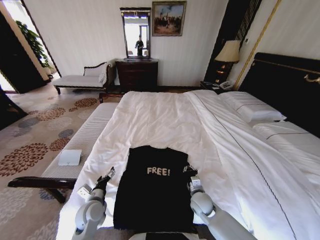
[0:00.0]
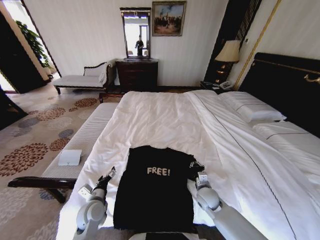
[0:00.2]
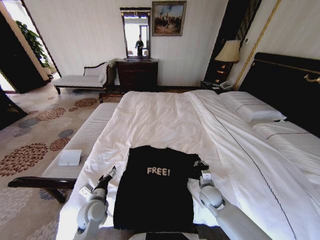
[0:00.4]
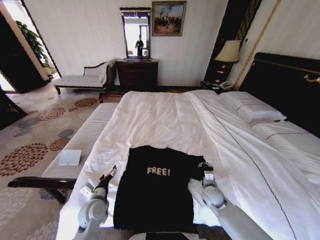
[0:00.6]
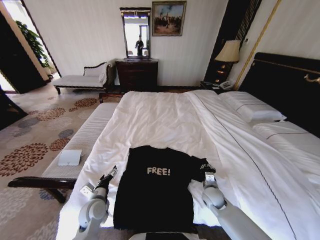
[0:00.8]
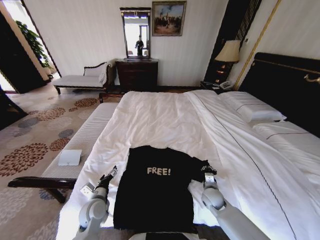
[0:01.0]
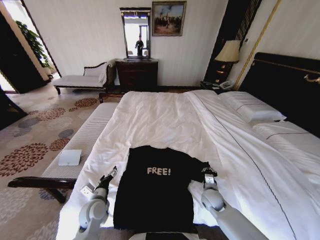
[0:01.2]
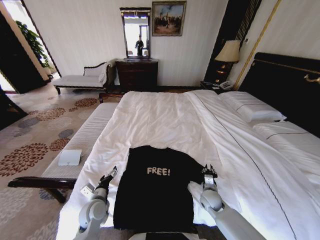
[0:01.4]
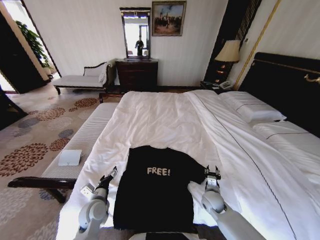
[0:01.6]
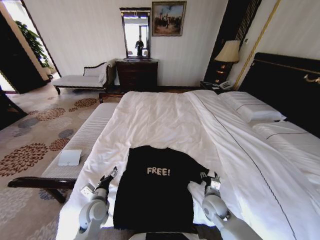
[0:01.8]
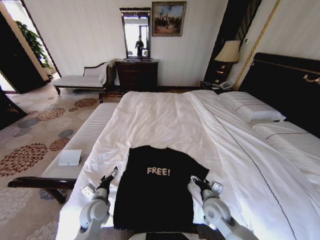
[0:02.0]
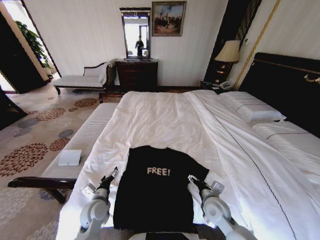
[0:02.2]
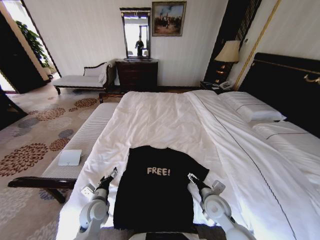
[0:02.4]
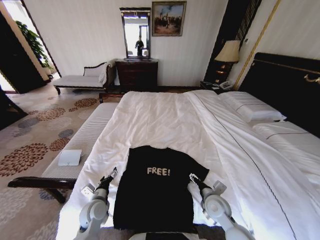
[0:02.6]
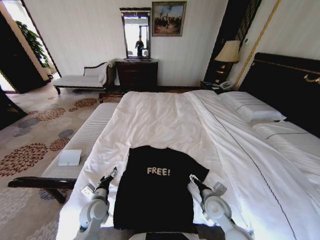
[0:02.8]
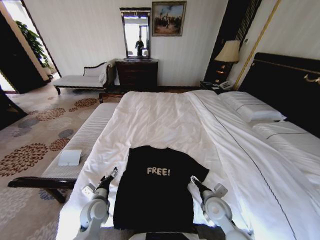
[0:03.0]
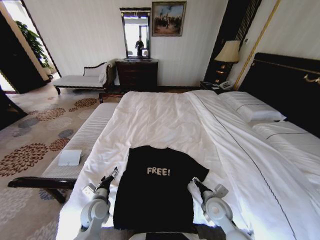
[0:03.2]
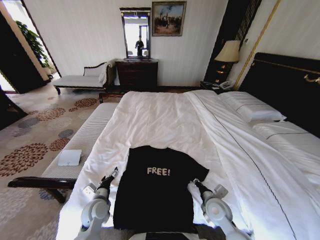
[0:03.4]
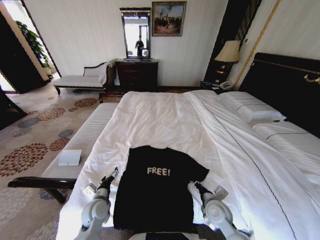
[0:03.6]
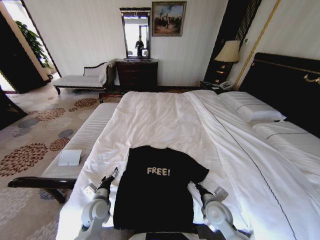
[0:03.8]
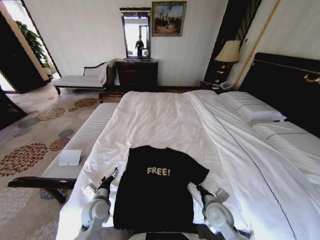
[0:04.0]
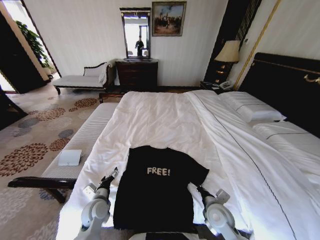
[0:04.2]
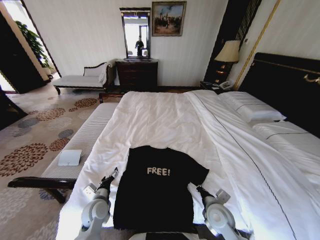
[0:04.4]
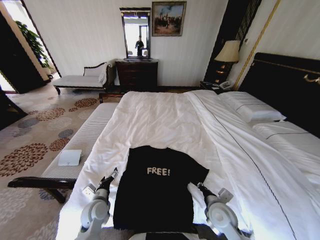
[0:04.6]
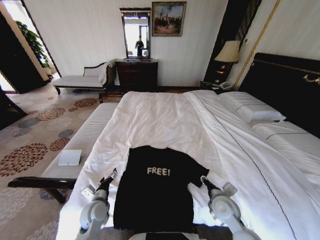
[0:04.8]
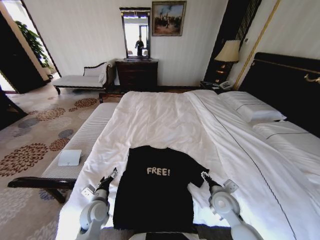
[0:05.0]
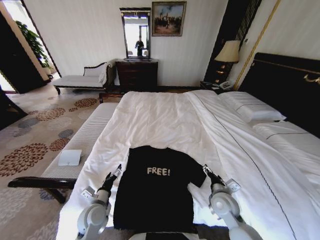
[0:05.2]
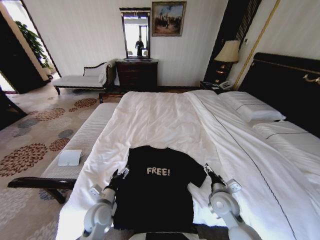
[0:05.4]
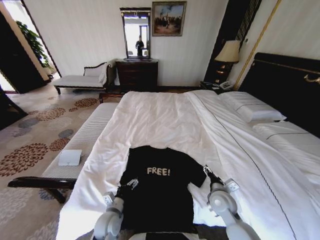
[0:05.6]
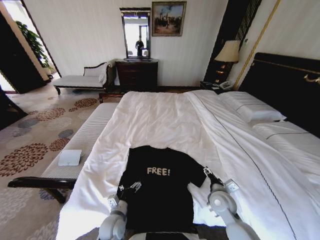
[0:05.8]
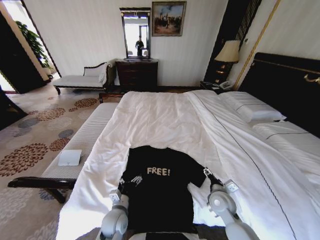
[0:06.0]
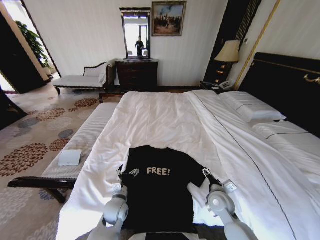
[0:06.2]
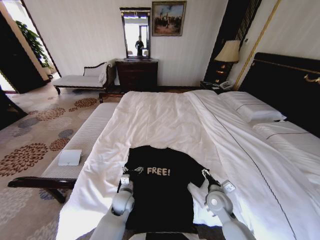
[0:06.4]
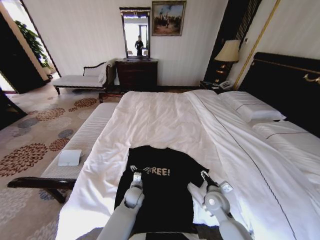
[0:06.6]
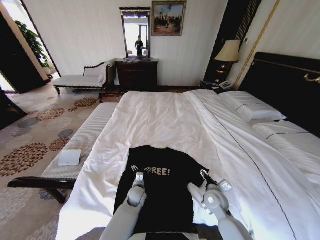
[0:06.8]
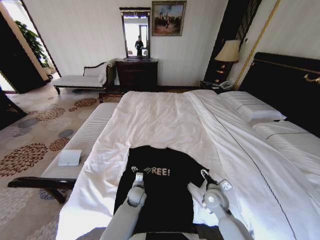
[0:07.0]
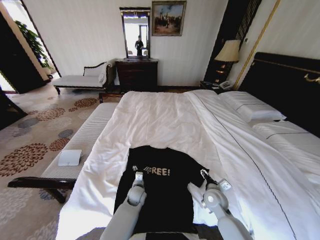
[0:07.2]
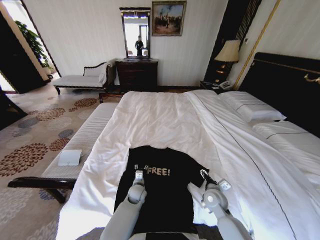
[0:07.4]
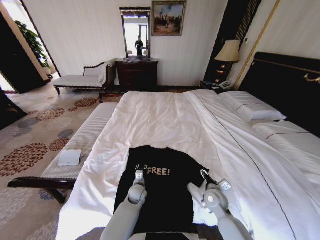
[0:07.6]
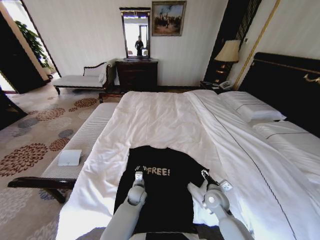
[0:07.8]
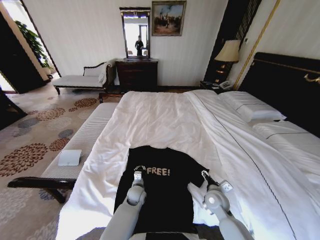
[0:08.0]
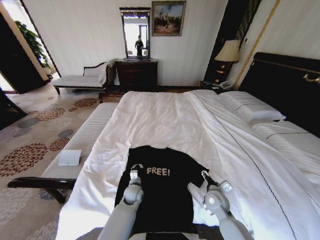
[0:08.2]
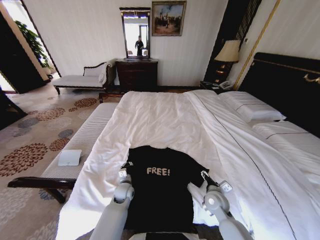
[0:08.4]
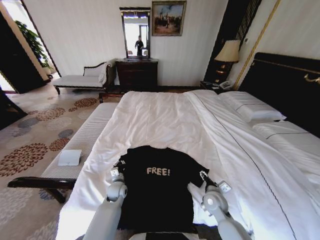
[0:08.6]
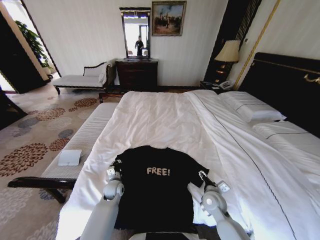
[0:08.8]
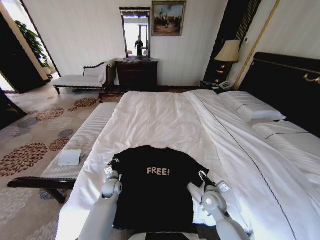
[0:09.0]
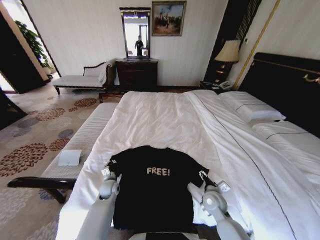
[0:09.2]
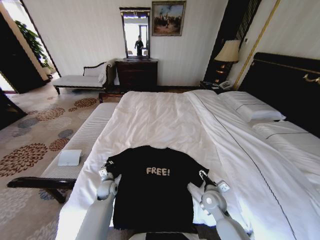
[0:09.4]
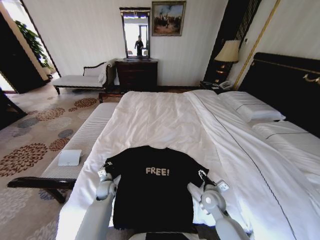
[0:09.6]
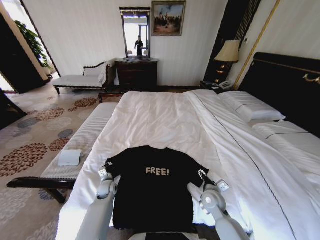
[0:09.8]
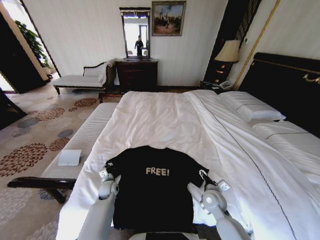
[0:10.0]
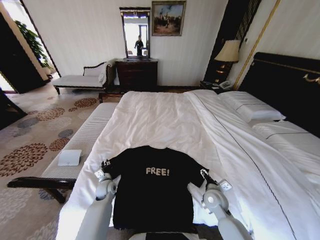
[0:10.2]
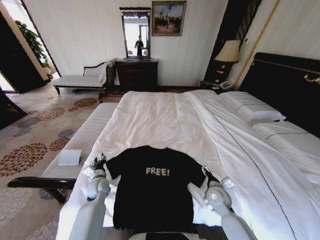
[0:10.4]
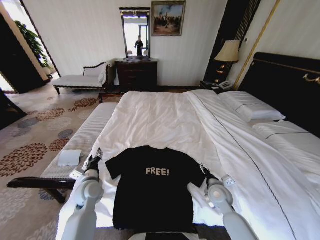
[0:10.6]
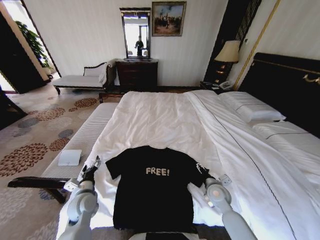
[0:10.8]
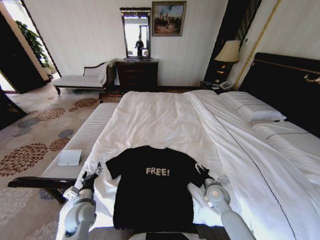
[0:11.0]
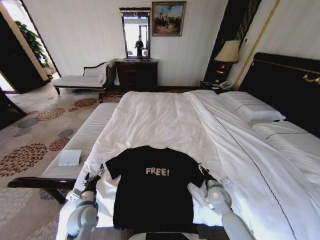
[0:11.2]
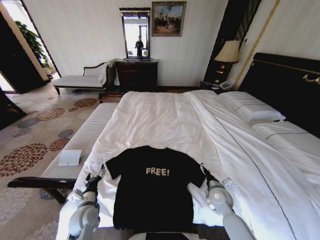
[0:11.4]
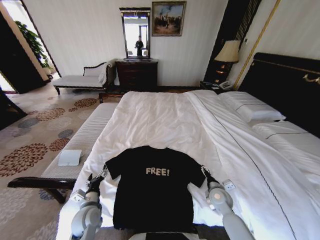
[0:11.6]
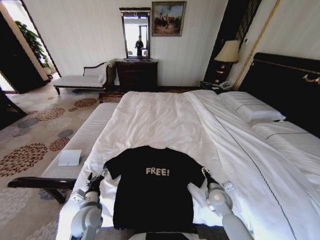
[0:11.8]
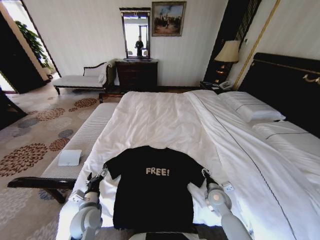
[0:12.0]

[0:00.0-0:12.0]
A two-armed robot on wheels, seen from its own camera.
Task of the whole recording: Fold the clothes on the bed.
0:00.0 to 0:01.6: The right gripper moves to the right, some 5 cm, and opens up.
0:01.6 to 0:03.0: The right gripper shifts about 10 cm upward and backward, and opens up.
0:03.0 to 0:04.4: The right gripper closes its fingers.
0:04.4 to 0:06.0: The right gripper changes place by roughly 5 cm, and opens up. Meanwhile the left gripper is displaced to the right by about 10 cm.
0:06.0 to 0:07.6: The left gripper goes approximately 15 cm forward, to the right and downward, and closes.
0:07.6 to 0:09.0: The left gripper shifts roughly 15 cm to the left, and closes.
0:09.0 to 0:10.4: The left gripper is displaced upward by approximately 5 cm, and opens its fingers.
0:10.4 to 0:12.0: The left gripper is displaced backward by approximately 15 cm, and opens.

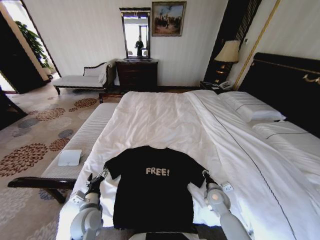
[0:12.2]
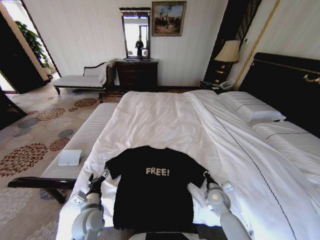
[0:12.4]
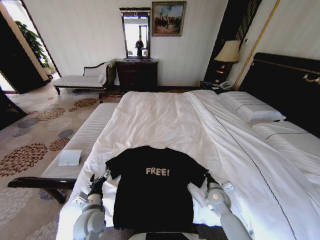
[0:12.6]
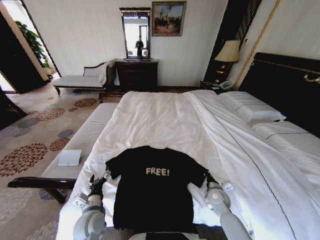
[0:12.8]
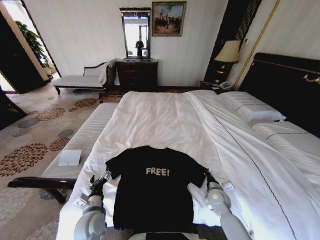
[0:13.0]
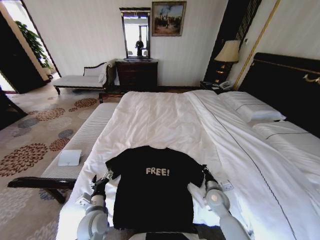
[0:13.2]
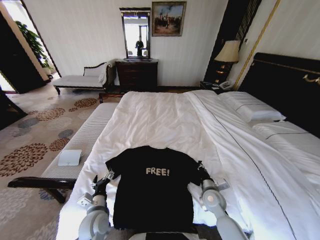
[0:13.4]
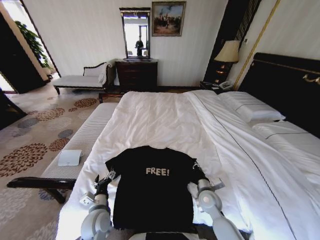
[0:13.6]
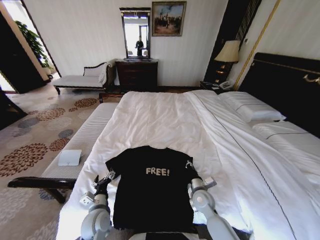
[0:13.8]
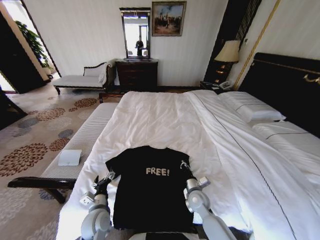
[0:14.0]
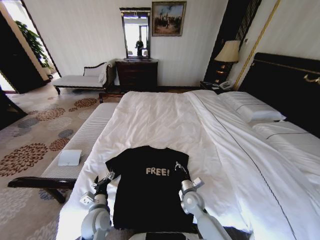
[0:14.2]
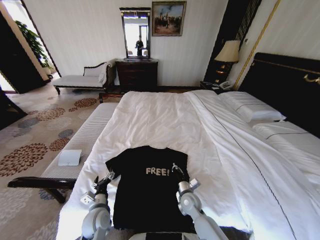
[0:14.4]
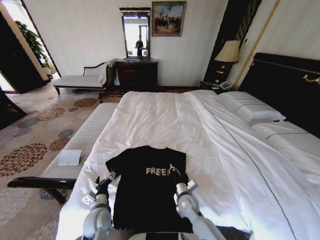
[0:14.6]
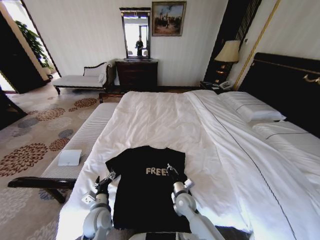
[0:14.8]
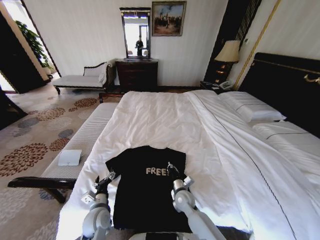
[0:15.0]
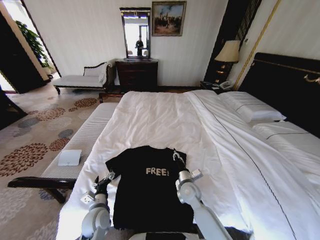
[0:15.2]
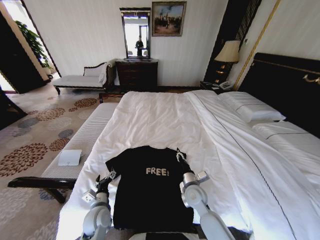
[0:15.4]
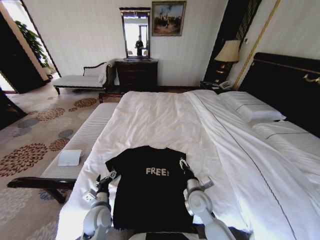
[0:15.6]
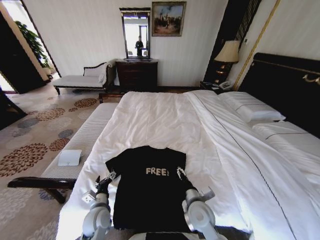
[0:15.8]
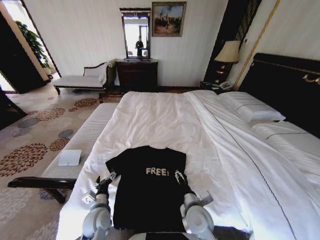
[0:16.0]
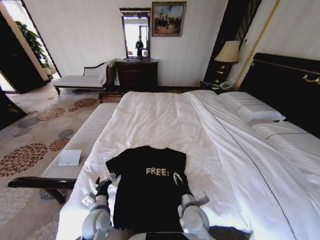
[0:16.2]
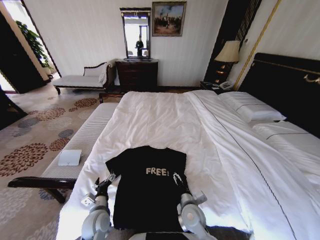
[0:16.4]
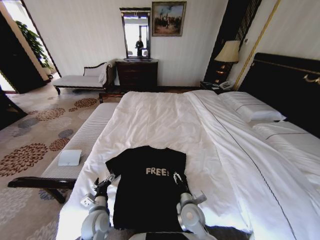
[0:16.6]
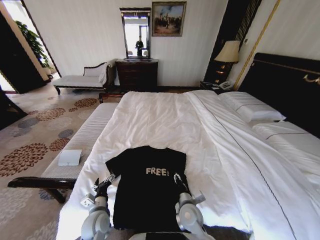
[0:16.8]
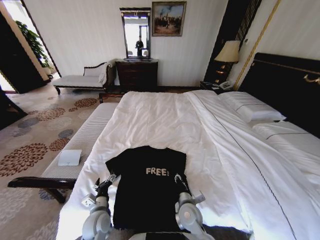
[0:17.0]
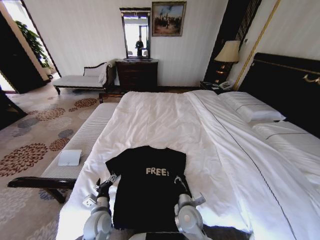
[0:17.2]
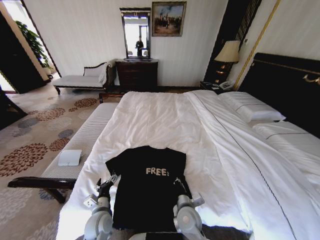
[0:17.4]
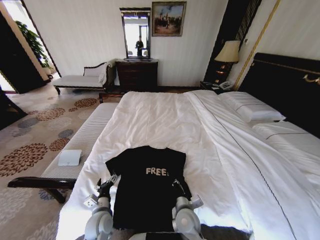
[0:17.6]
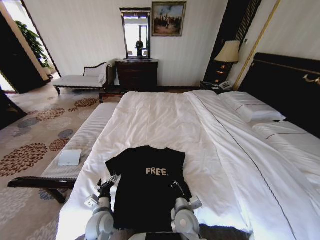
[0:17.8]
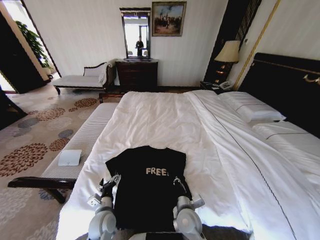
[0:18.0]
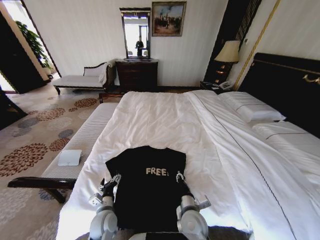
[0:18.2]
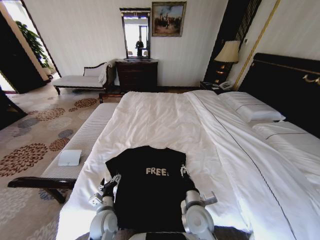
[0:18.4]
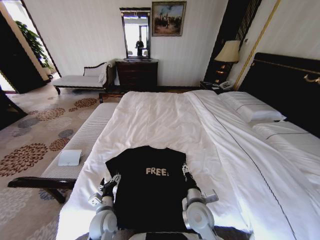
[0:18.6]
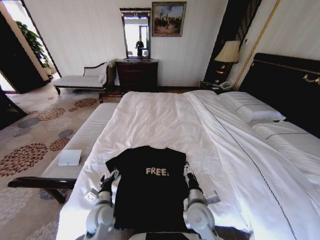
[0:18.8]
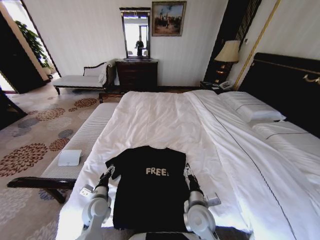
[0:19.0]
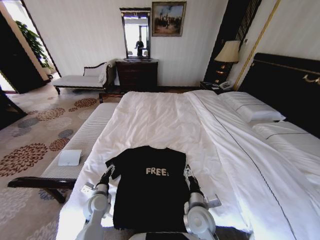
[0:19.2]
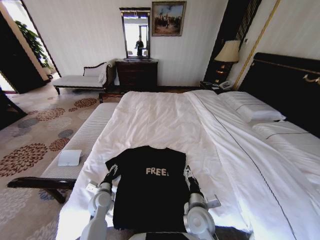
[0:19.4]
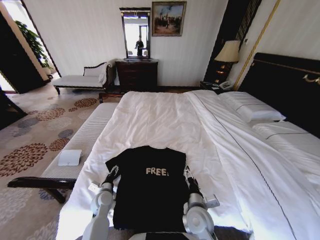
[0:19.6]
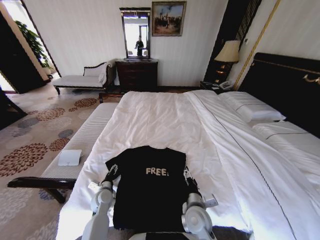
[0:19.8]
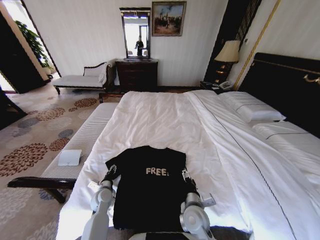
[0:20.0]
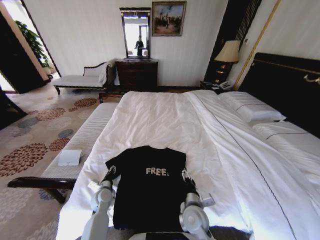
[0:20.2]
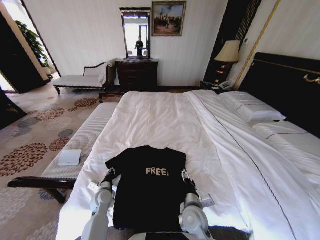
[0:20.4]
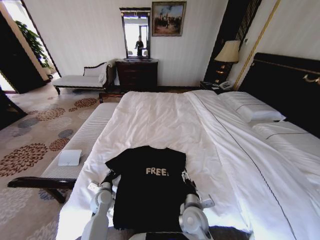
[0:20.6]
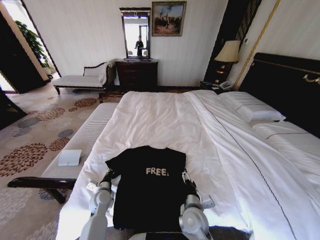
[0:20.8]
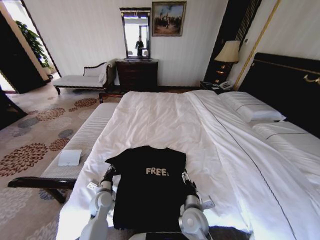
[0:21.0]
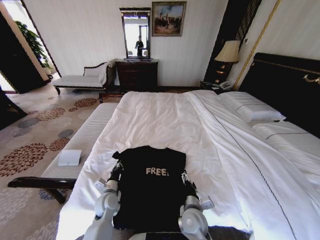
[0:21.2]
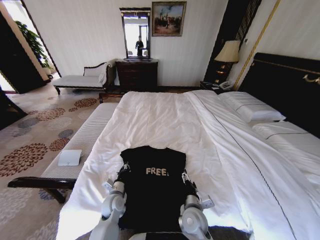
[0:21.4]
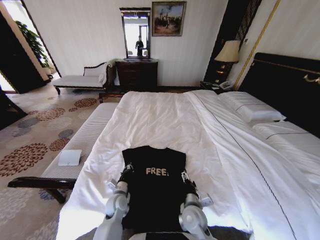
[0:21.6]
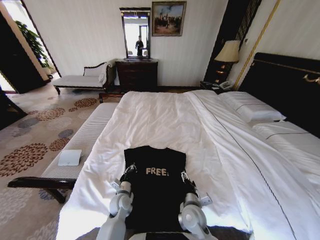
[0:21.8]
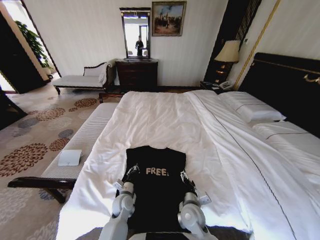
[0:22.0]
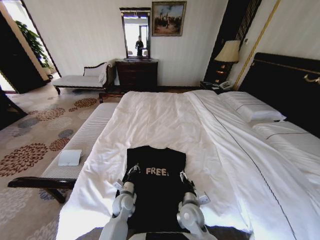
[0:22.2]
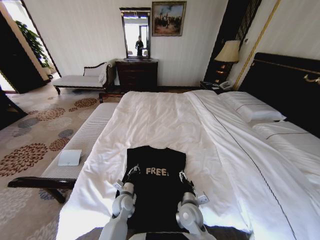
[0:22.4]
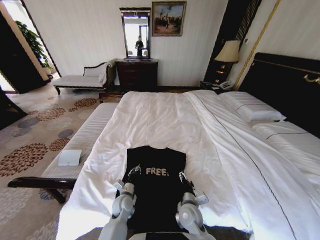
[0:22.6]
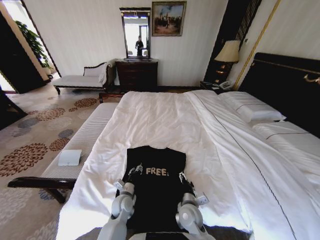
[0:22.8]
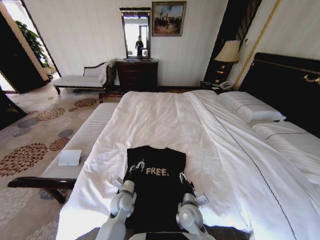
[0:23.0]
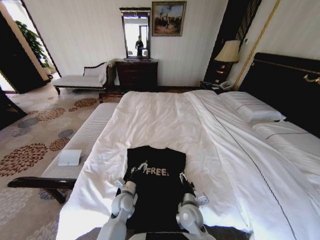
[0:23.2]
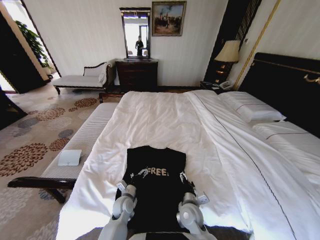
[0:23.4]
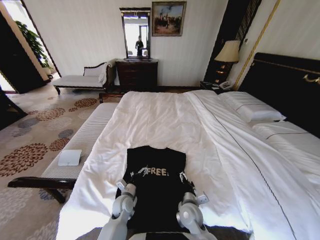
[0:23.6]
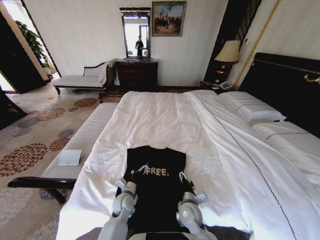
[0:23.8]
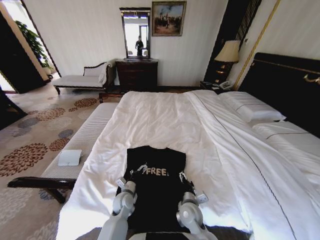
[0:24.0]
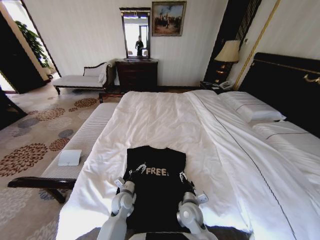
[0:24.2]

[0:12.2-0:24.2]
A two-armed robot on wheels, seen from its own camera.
Task of the whole recording: Fold the clothes on the bed.
0:12.2 to 0:13.8: The right gripper goes some 10 cm to the left, and closes up.
0:13.8 to 0:15.2: The right gripper heads to the left, covering some 5 cm.
0:15.2 to 0:16.6: The right gripper travels backward by approximately 10 cm, and opens up.
0:16.6 to 0:18.2: The right gripper closes its fingers.
0:18.2 to 0:19.8: The right gripper opens, while the left gripper heads forward, covering roughly 10 cm.
0:19.8 to 0:21.2: The left gripper closes its fingers.
0:21.2 to 0:22.6: The left gripper travels to the right by roughly 5 cm.
0:22.6 to 0:24.2: The left gripper opens its fingers.
